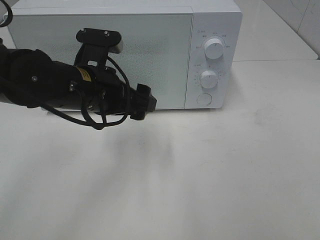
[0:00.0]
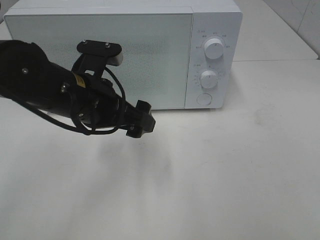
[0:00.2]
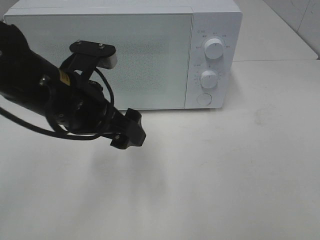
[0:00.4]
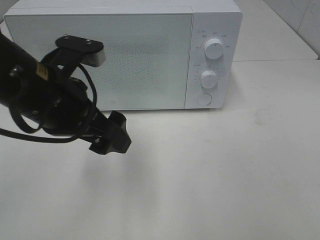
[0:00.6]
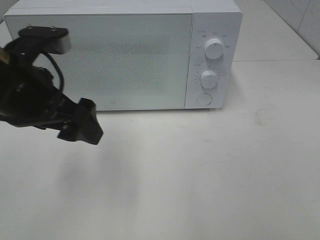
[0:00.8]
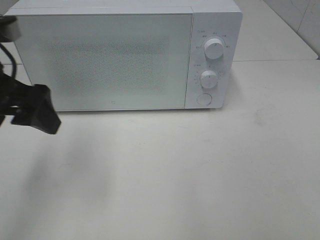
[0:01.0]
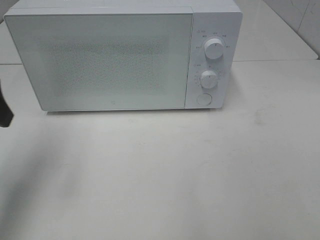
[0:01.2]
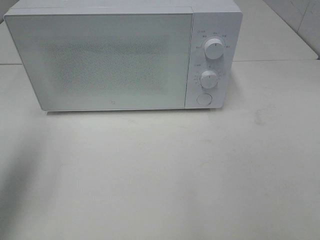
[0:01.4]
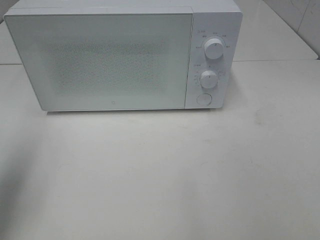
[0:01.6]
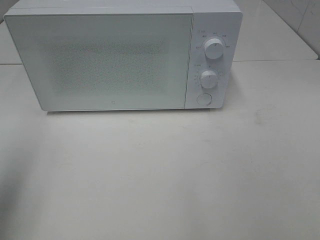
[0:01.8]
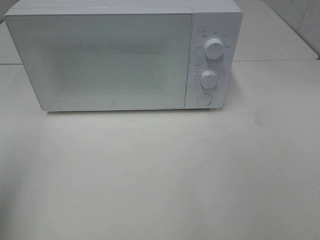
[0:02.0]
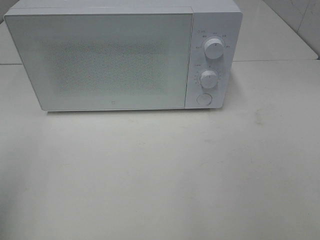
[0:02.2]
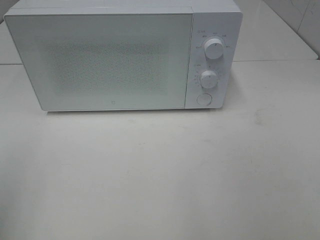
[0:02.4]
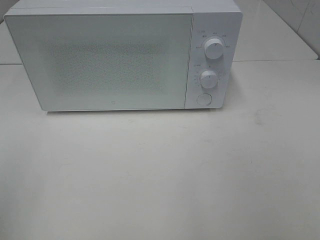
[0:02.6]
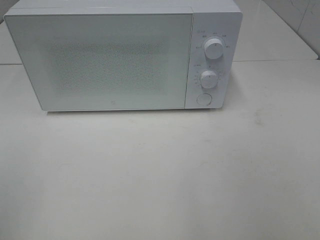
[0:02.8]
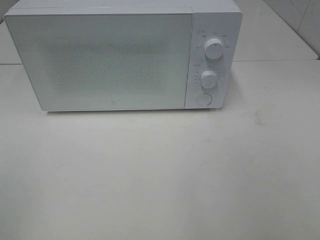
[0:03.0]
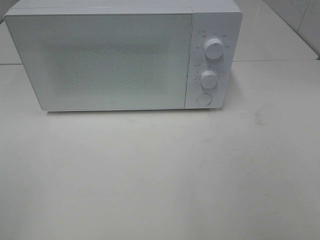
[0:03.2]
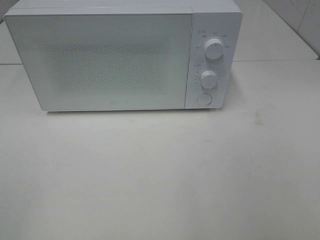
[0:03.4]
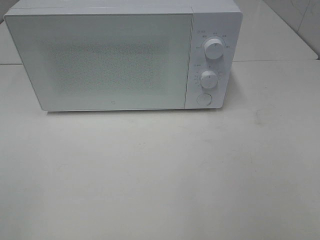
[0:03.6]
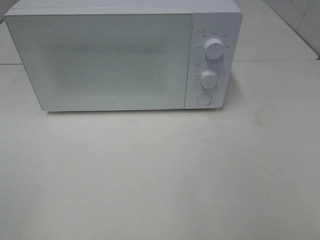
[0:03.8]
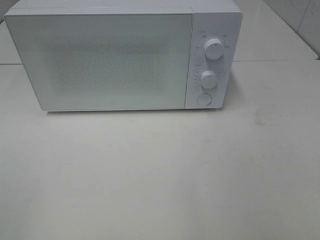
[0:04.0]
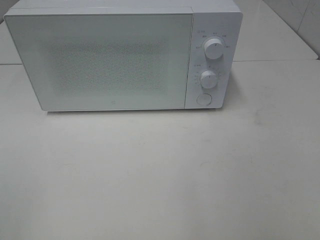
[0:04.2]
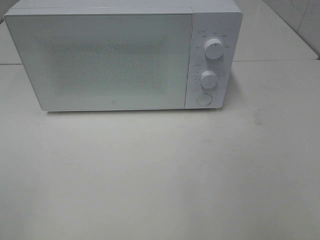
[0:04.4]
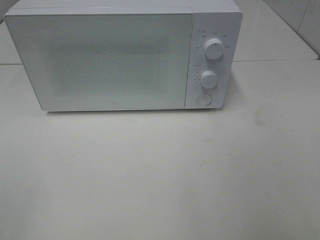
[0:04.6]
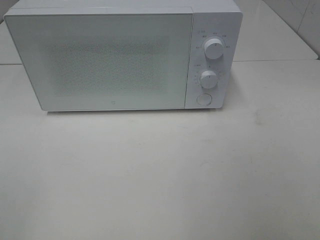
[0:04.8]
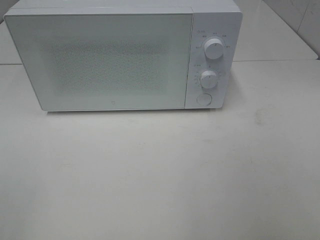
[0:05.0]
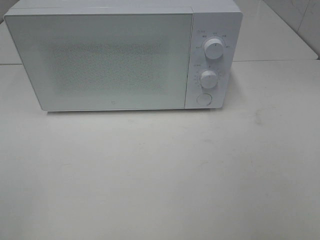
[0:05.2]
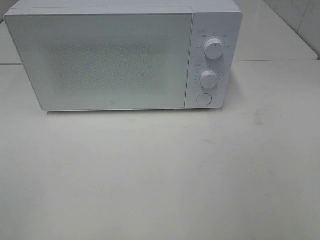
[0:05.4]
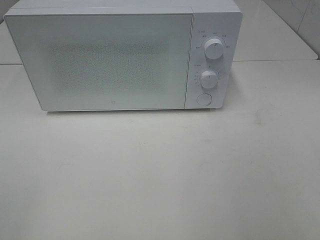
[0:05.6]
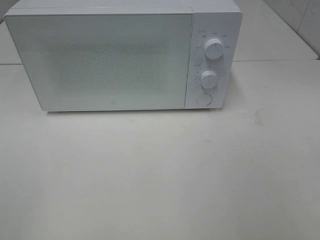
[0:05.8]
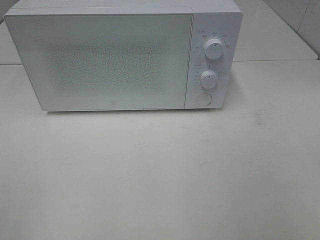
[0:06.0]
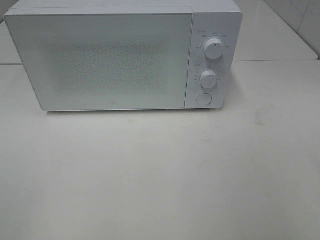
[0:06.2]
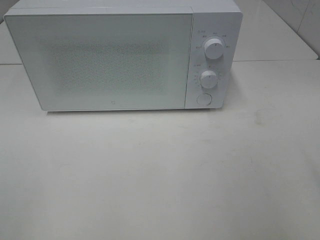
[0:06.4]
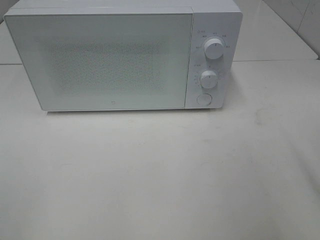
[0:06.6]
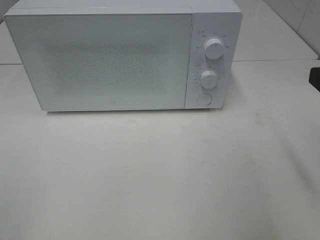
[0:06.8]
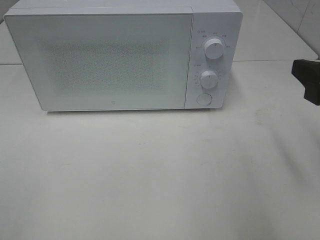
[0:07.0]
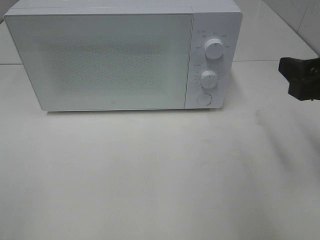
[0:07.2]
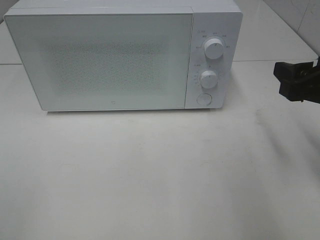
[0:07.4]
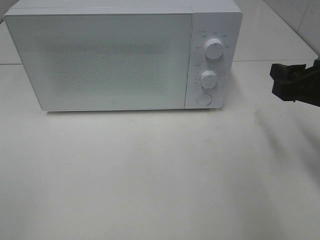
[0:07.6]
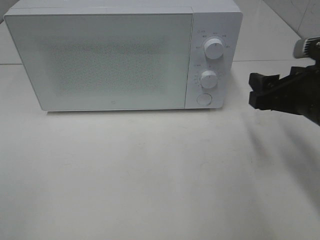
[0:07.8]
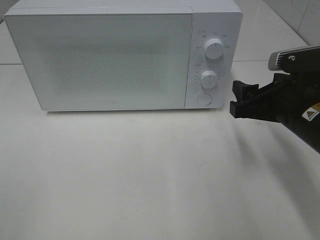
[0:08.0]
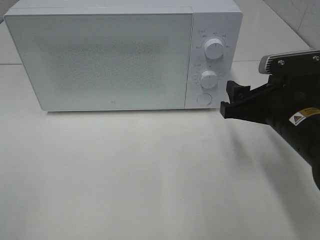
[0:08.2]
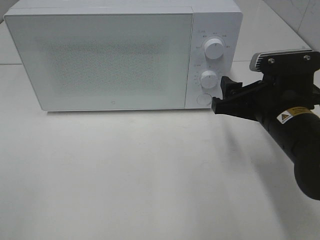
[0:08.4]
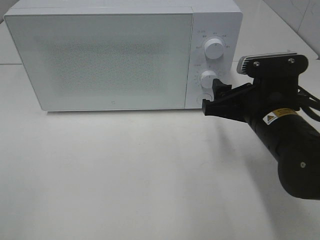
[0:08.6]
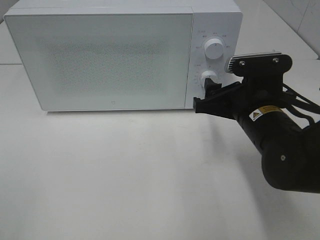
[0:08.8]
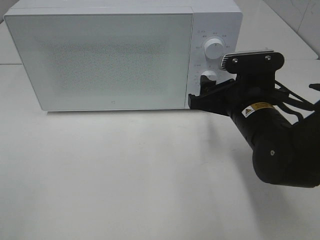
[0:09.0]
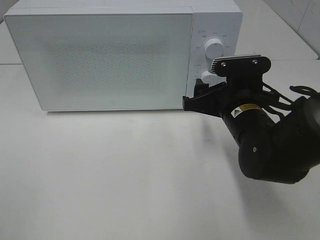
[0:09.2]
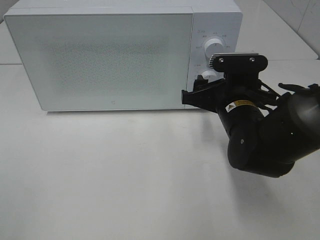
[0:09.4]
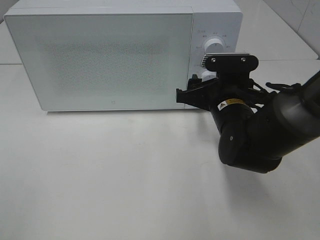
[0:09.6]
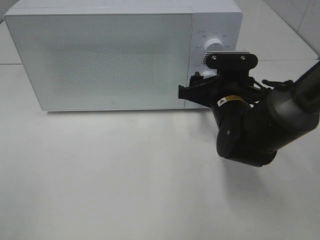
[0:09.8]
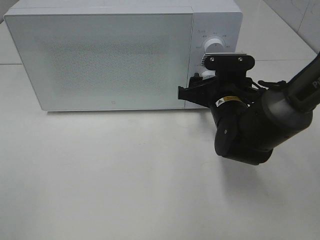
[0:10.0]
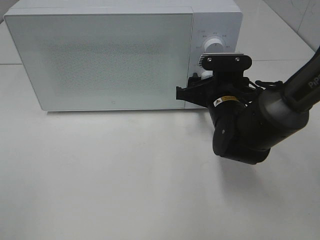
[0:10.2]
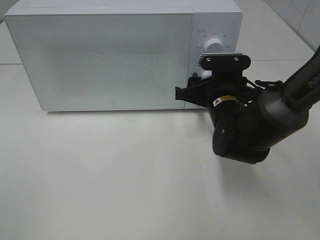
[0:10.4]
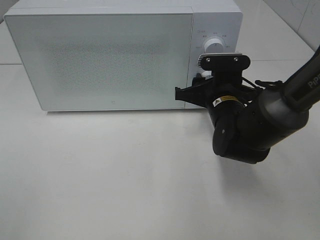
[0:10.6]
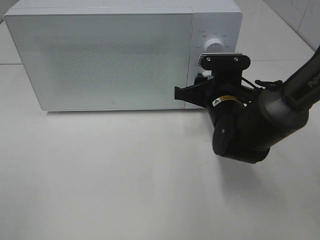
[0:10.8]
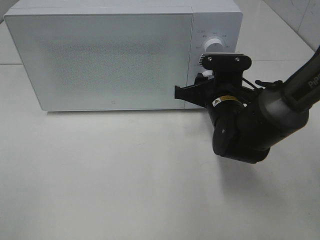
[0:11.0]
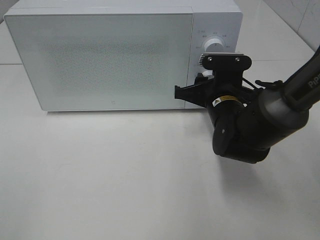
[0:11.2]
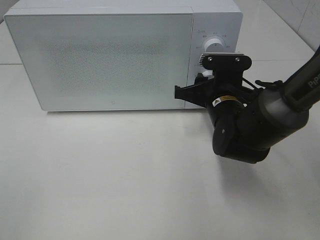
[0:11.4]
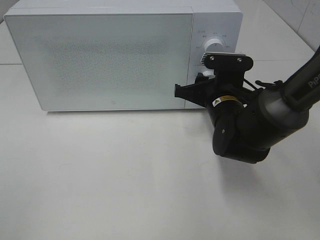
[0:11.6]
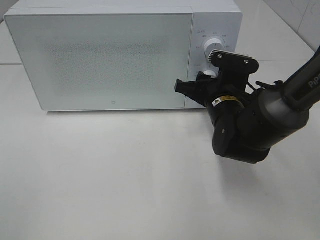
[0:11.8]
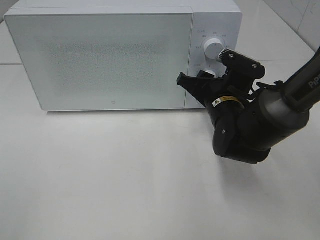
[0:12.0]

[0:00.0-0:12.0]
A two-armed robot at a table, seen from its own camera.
Task of the whole recording: Heat the burger.
0:00.0 to 0:01.6: The left gripper heads to the left and upward, covering approximately 25 cm.
0:01.6 to 0:03.0: The left gripper goes approximately 15 cm backward.
0:06.0 to 0:07.6: The right gripper shifts about 20 cm forward.
0:07.6 to 0:09.0: The right gripper is displaced to the left and downward by about 10 cm.
0:09.0 to 0:10.4: The right gripper shifts approximately 5 cm forward.

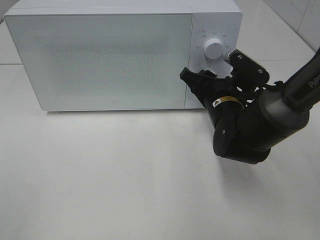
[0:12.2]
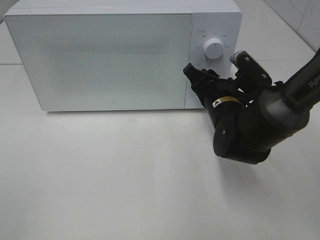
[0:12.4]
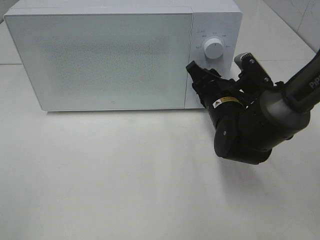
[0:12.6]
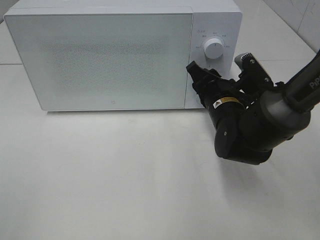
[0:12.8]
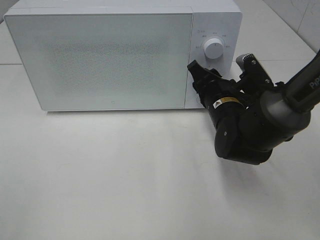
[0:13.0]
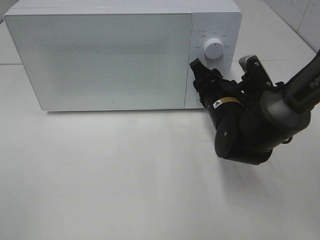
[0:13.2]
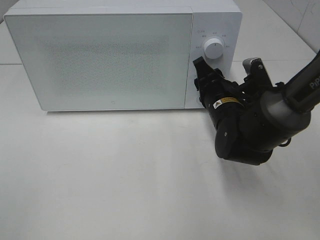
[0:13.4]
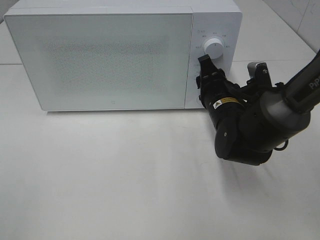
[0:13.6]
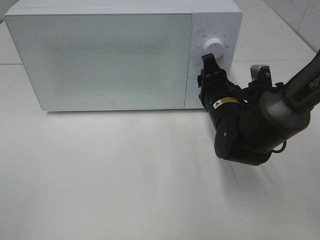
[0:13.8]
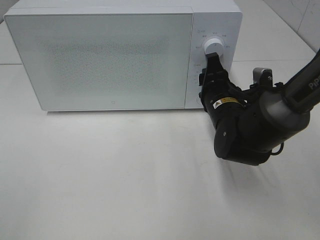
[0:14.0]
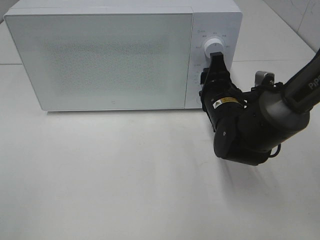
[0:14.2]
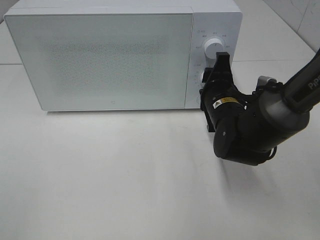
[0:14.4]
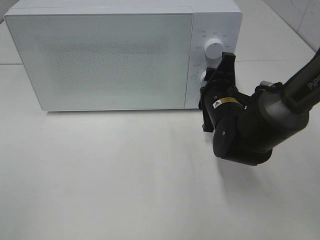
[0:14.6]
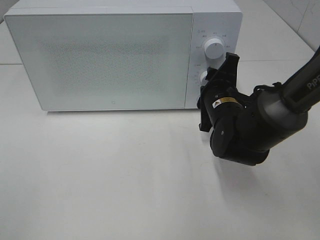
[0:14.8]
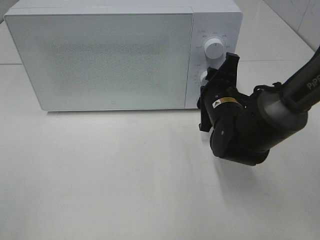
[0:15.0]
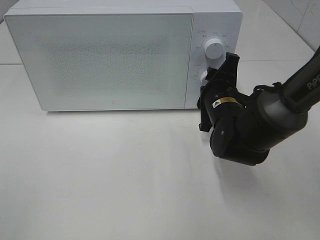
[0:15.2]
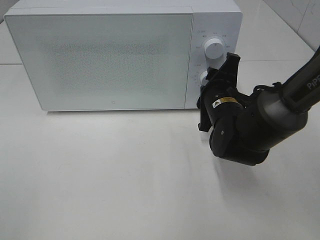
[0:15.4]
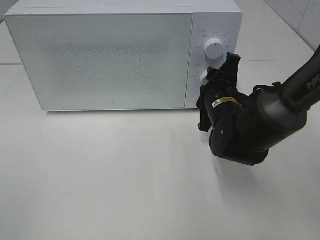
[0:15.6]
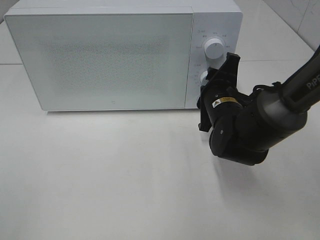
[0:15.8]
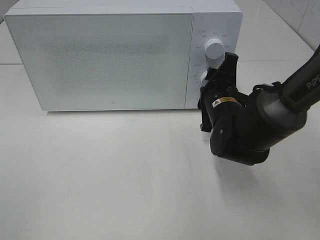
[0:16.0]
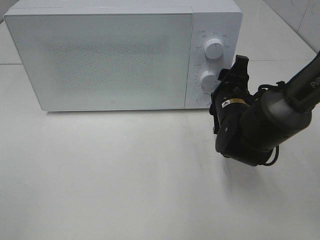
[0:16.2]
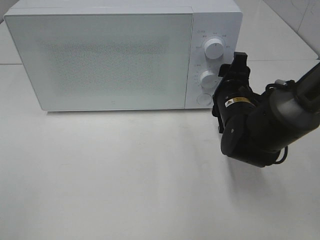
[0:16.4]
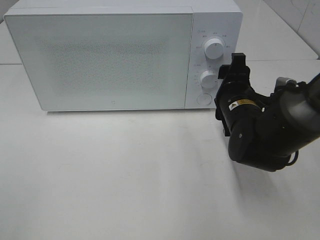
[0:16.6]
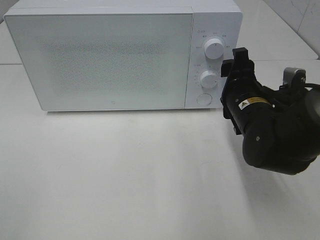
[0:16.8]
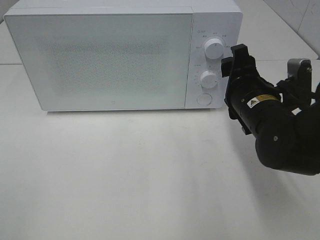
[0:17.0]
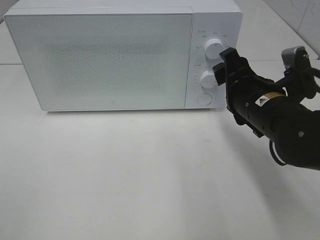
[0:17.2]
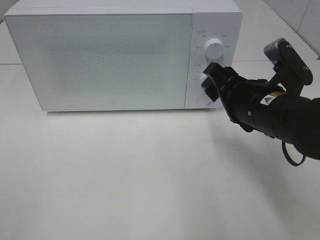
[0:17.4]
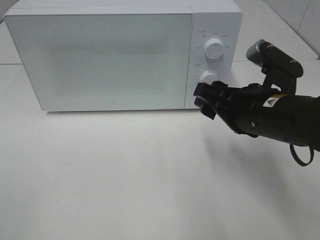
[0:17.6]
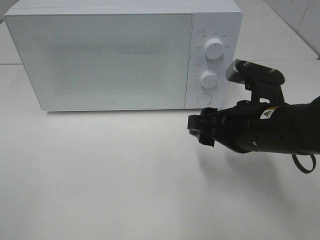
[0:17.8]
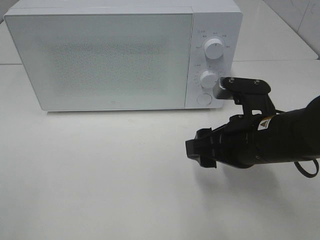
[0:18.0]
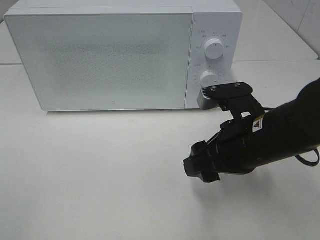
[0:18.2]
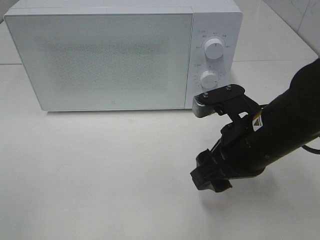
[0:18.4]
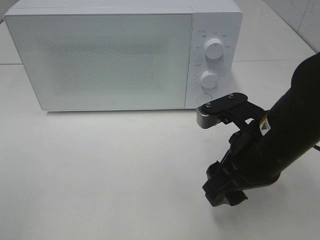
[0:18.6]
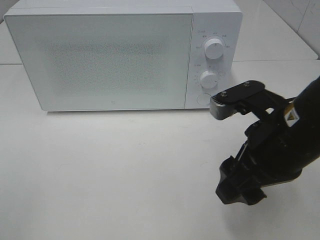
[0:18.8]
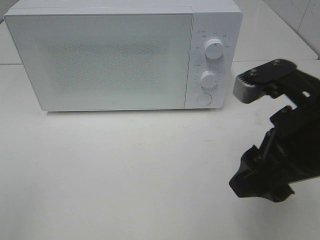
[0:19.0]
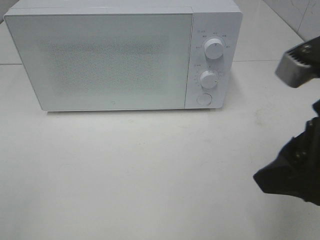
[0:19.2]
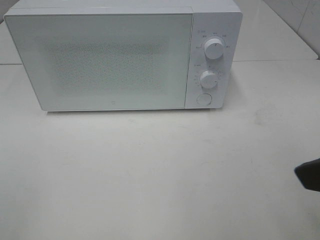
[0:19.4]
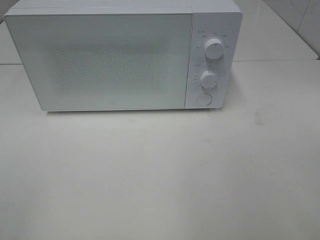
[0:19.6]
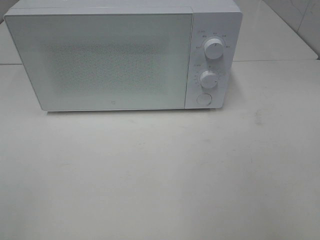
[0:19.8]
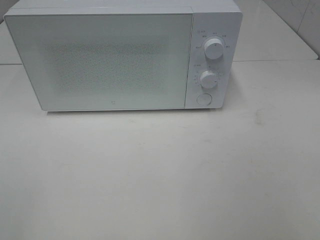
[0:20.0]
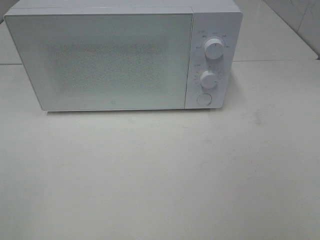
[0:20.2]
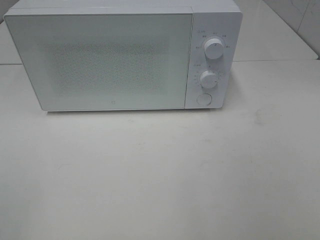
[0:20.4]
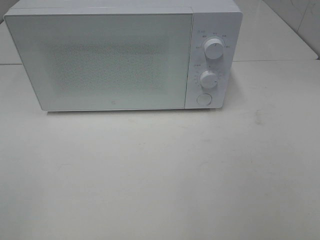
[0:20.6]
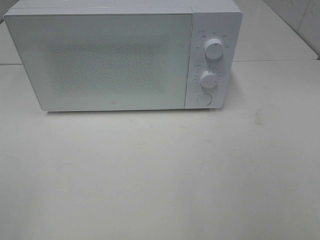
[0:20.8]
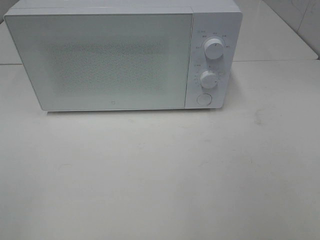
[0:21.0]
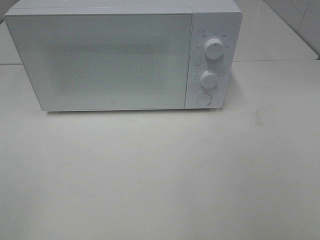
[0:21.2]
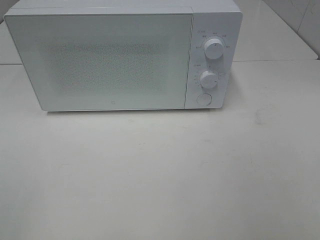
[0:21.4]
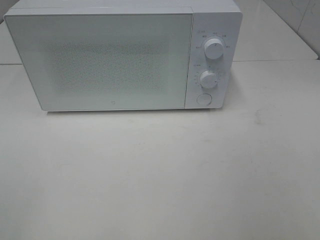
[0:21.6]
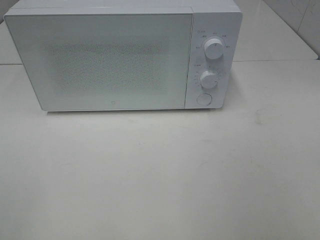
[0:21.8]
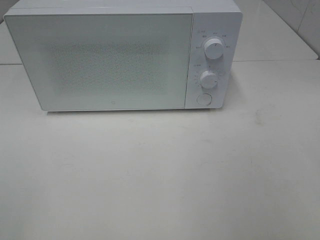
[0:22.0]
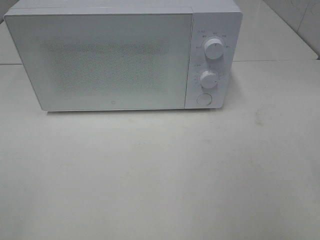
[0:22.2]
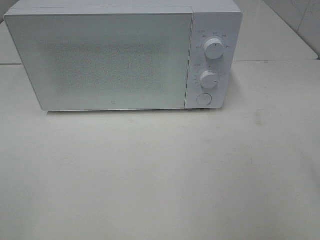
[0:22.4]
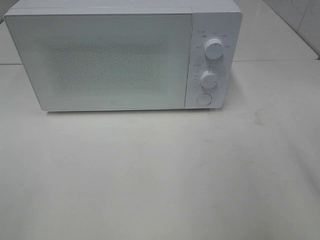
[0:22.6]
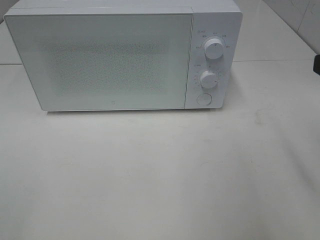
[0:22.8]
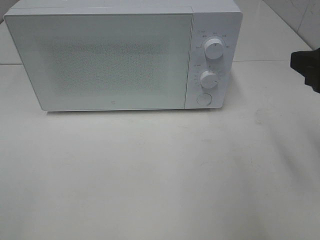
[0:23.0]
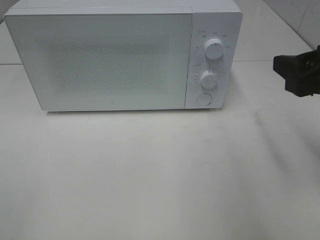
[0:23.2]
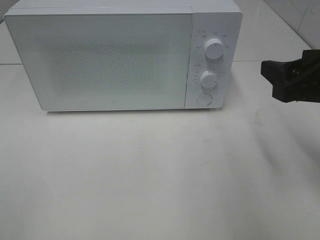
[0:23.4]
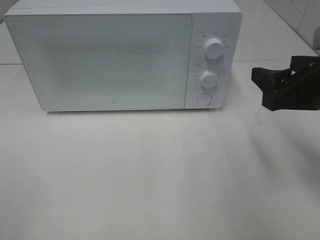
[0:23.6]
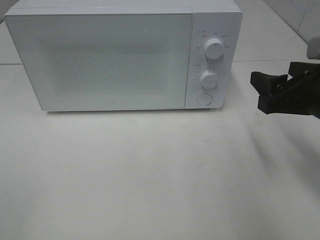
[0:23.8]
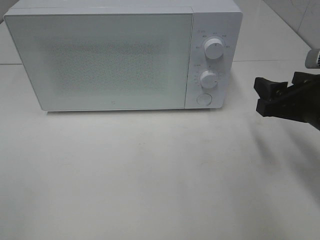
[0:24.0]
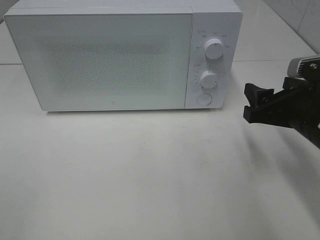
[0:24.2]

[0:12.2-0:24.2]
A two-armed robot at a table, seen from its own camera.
Task of the whole recording: Heat the burger.
Step, 0:12.2 to 0:16.8: Right hand: twist timer button.
0:15.2 to 0:16.6: The grippers move only a little.
0:16.6 to 0:18.2: The right gripper heads backward, covering approximately 10 cm.
0:18.2 to 0:19.8: The right gripper moves backward, upward and to the right, approximately 25 cm.
0:22.6 to 0:24.2: The right gripper heads downward and forward, covering approximately 15 cm.
